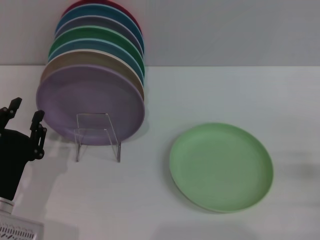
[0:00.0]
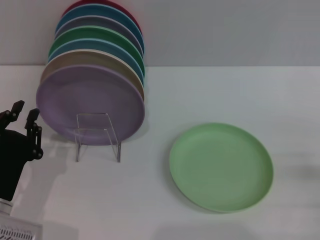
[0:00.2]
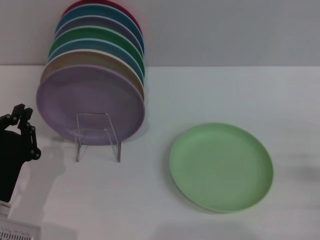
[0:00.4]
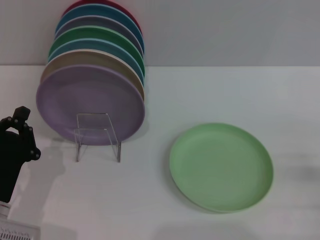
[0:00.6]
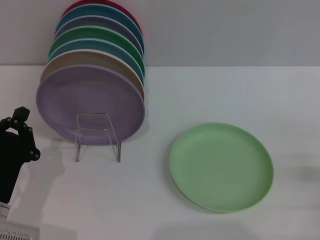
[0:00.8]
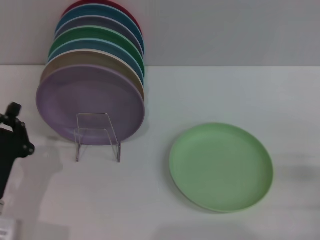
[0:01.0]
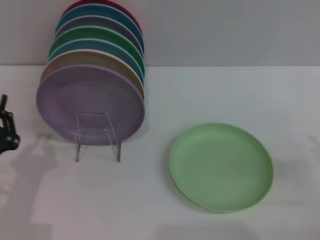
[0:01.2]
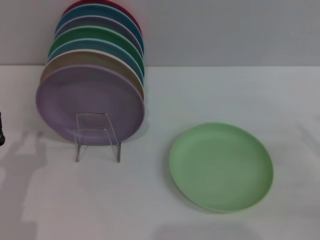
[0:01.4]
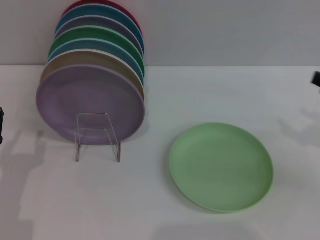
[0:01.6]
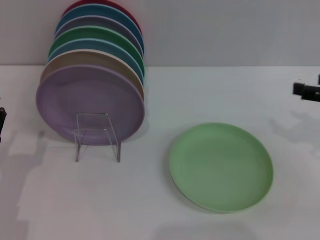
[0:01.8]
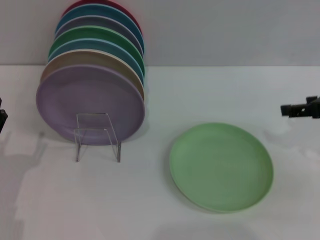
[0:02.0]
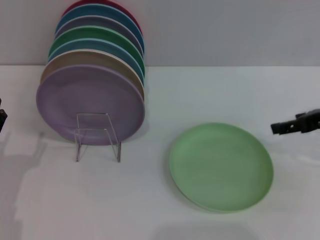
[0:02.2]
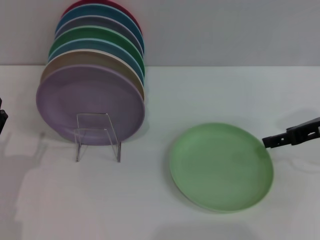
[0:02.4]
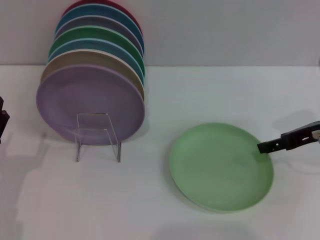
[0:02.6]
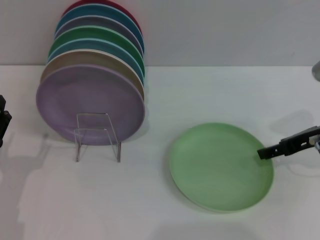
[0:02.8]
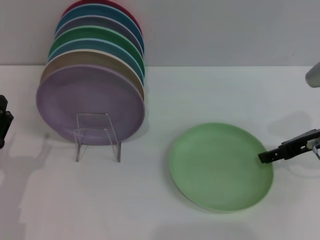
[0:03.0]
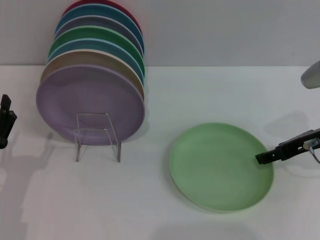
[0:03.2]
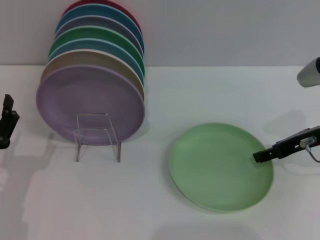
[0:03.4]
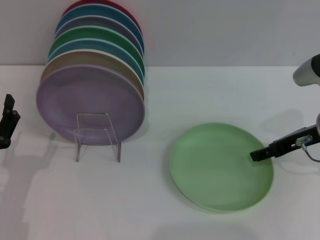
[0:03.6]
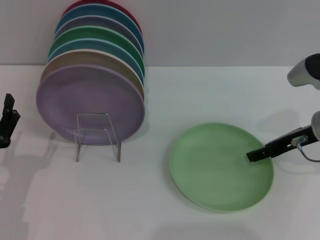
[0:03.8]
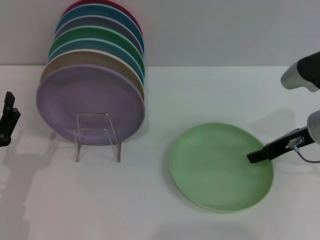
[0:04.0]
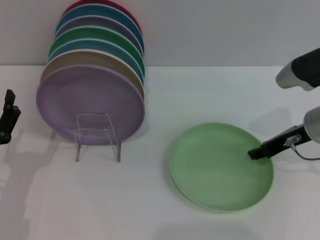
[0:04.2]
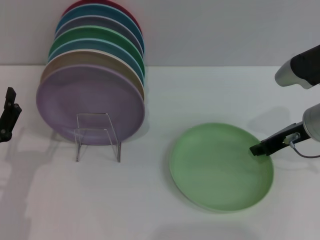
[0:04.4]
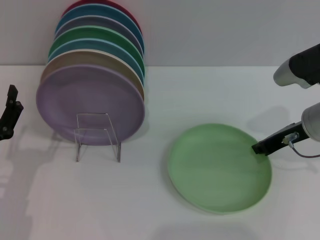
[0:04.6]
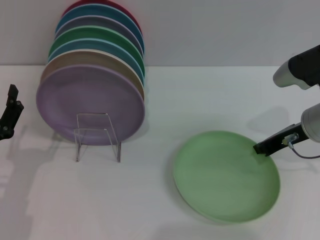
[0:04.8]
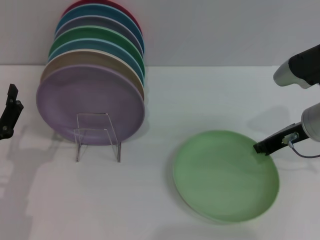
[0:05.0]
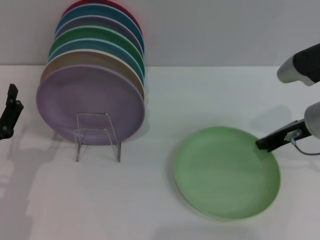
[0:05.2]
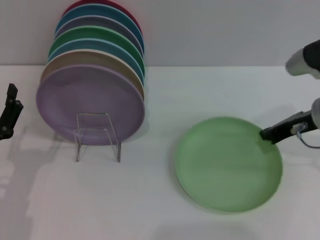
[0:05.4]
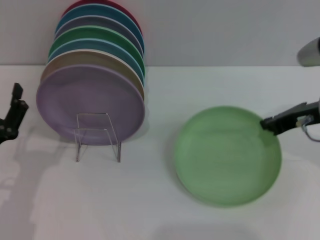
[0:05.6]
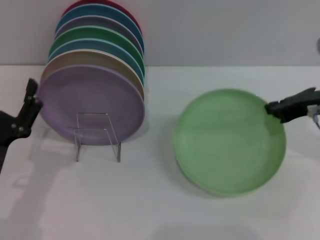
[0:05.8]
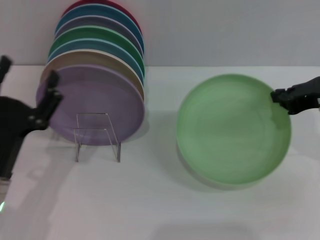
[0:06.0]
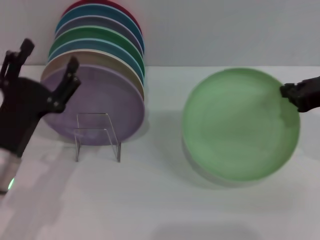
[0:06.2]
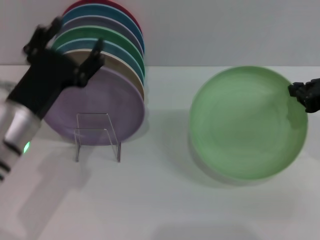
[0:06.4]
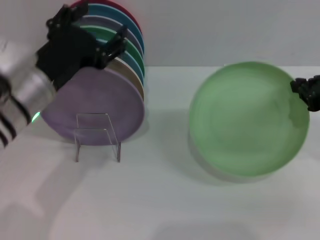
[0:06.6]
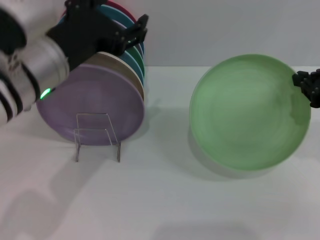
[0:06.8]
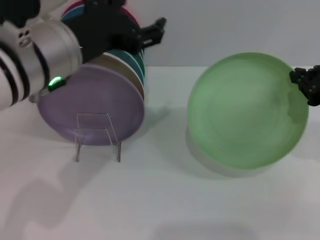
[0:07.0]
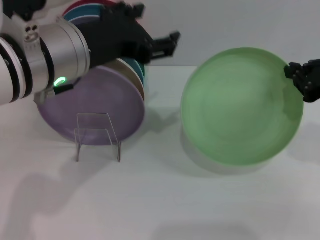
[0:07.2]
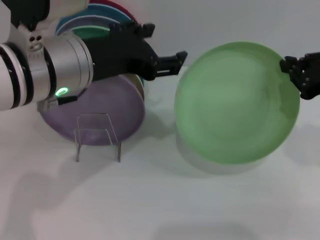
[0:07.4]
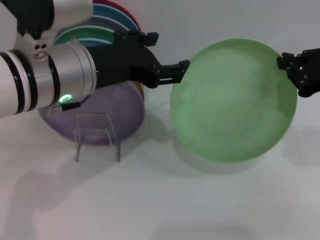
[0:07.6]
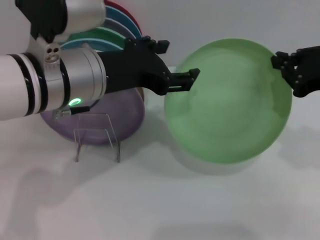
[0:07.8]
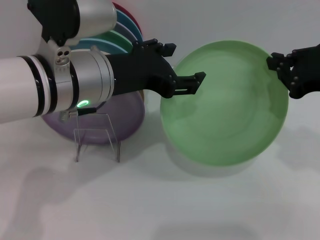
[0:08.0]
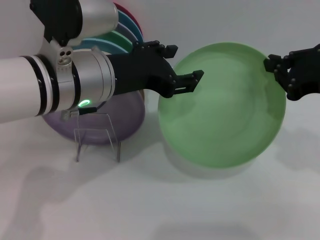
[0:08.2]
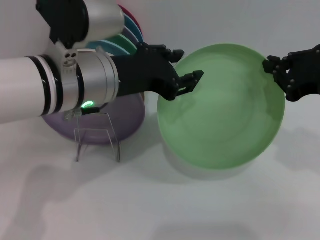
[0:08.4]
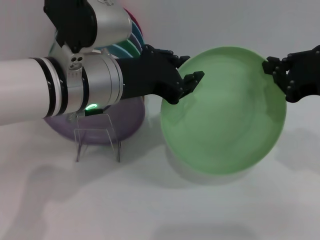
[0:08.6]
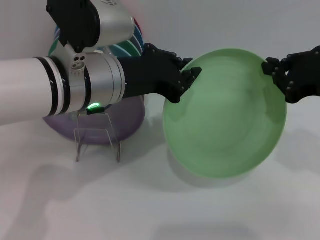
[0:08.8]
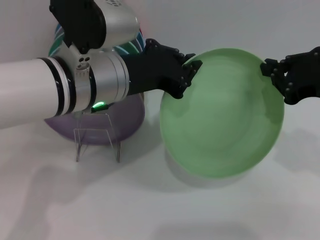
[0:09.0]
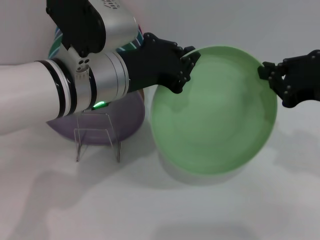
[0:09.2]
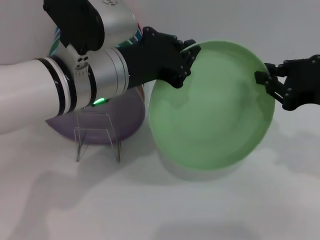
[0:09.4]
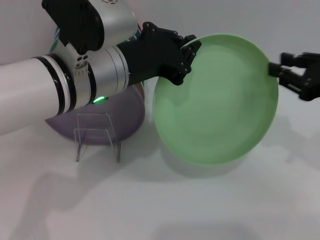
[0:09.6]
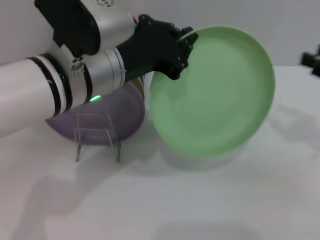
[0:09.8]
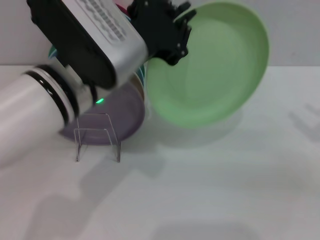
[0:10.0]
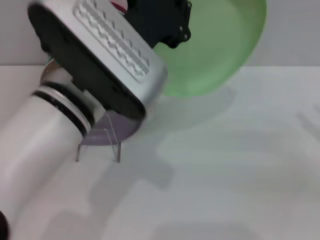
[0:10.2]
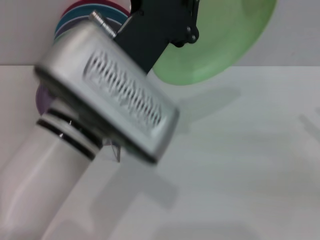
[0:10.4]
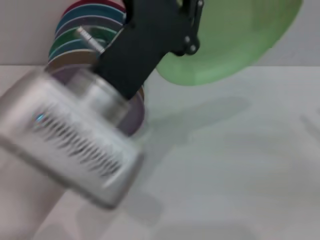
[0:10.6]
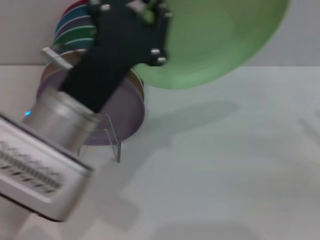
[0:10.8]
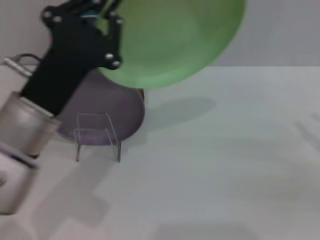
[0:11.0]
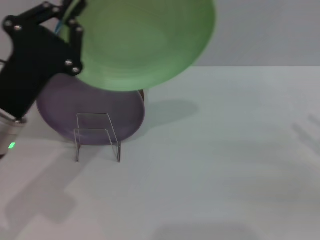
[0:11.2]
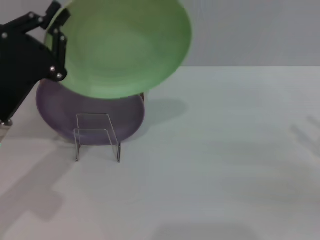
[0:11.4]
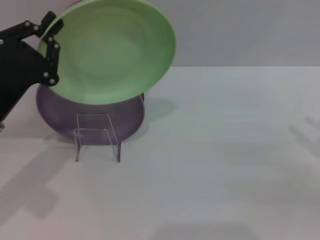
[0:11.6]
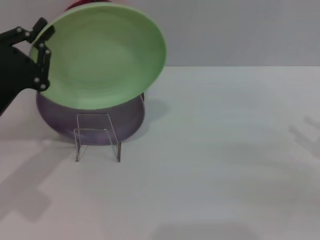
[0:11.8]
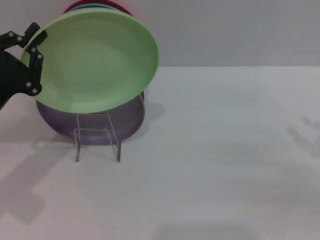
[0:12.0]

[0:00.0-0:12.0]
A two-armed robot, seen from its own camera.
Task of the whole recording: Grip the plate with one hand, pass it to the other, then set it on the shelf.
Step, 0:00.0 to 0:06.0: Pick up the plate with the right gripper.
Step, 0:06.2 to 0:09.6: Pass the plate from the right gripper to the left gripper.
0:00.0 to 0:01.6: The left gripper closes.
0:01.6 to 0:03.0: The right gripper shifts roughly 10 cm to the left and forward.
0:03.0 to 0:04.4: The grippers move only a little.
0:04.4 to 0:06.0: The right gripper heads upward, covering approximately 5 cm, and closes.
0:06.0 to 0:07.6: The left gripper is displaced upward, to the right and forward by about 20 cm.
0:07.6 to 0:09.0: The left gripper closes its fingers.
0:09.0 to 0:10.4: The left gripper travels backward by roughly 5 cm, while the right gripper moves to the right, approximately 15 cm, and opens its fingers.
0:10.4 to 0:12.0: The left gripper goes approximately 20 cm to the left and downward.

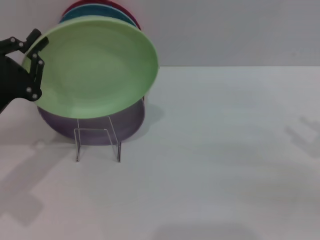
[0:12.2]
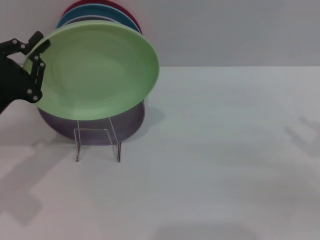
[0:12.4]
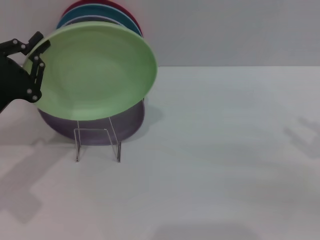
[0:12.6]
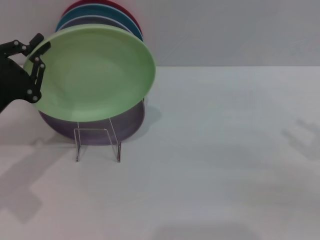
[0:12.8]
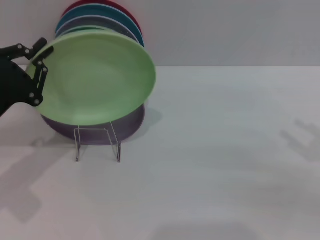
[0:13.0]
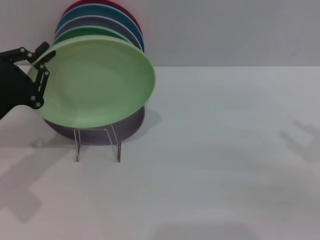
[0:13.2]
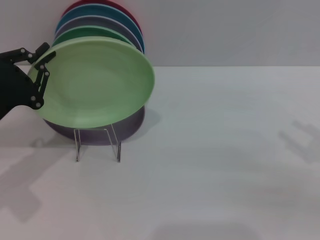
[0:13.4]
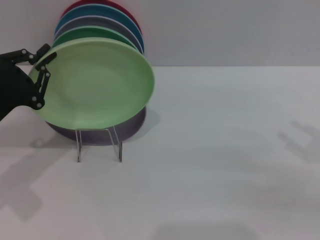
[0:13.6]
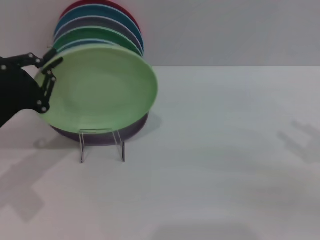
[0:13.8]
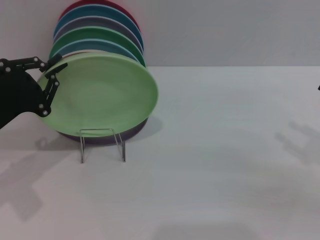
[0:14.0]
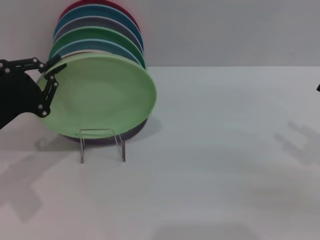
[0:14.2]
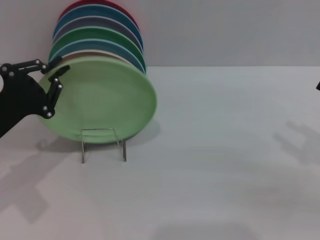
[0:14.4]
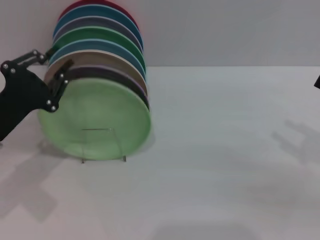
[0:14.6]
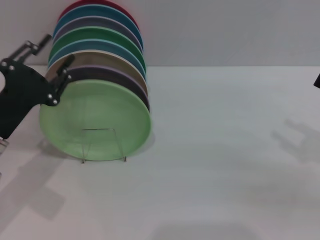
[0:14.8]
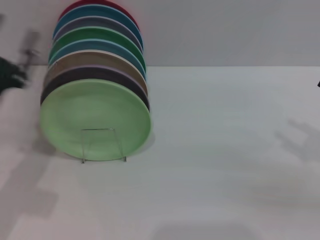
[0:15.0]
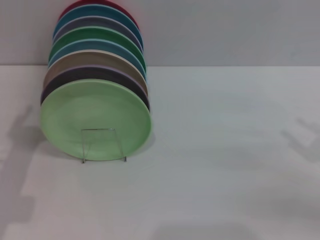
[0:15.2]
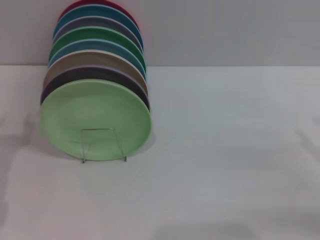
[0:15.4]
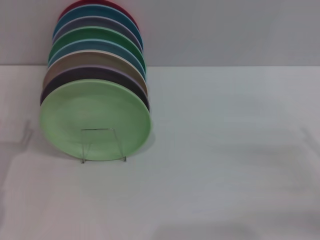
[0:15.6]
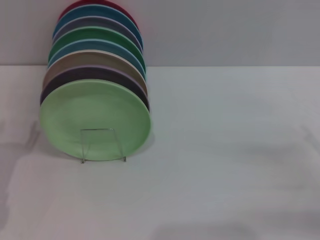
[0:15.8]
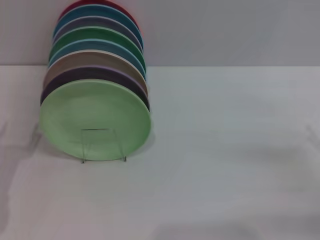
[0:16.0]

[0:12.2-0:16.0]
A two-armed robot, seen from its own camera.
Task of the whole recording: Grip the plate with one hand, pass it to the other, then set it on the shelf.
Step, 0:12.2 to 0:14.8: Place the plate on the shelf with the left gripper.
0:12.2 to 0:14.8: The grippers stay close to where they were, moving slightly.
0:14.8 to 0:16.0: The left gripper travels backward by approximately 5 cm, and opens.

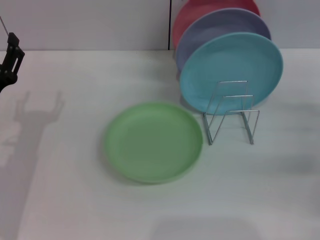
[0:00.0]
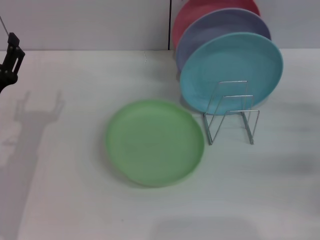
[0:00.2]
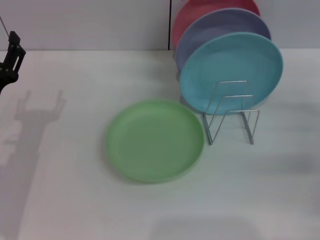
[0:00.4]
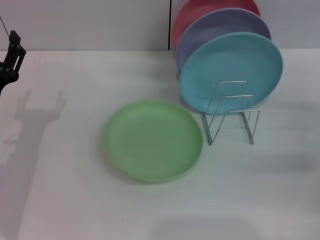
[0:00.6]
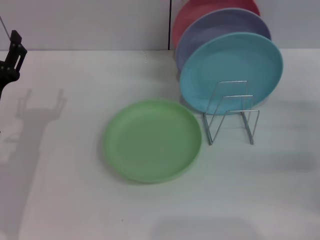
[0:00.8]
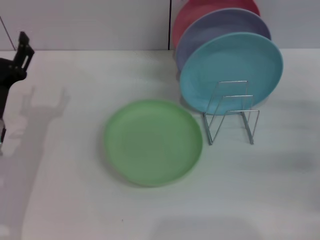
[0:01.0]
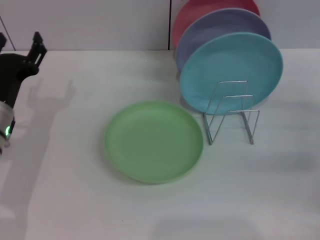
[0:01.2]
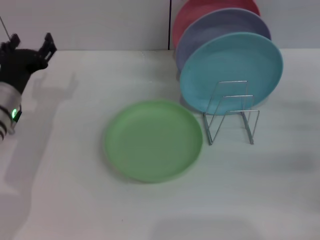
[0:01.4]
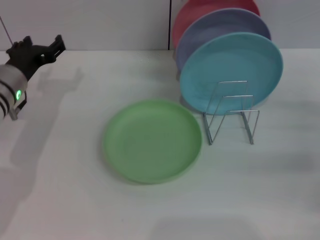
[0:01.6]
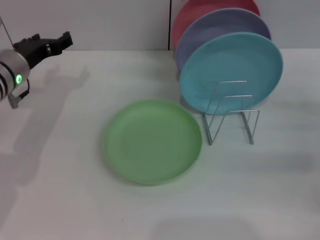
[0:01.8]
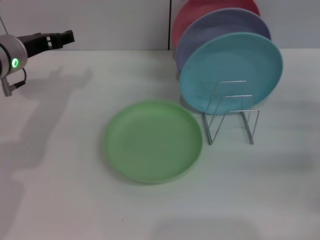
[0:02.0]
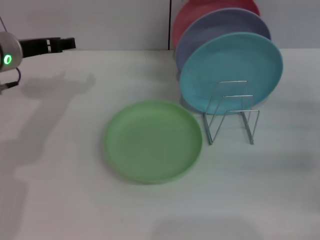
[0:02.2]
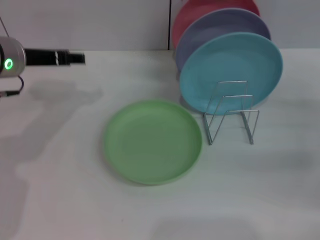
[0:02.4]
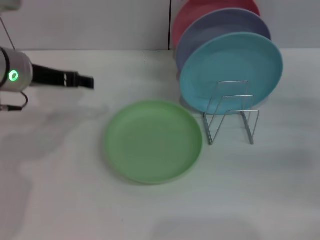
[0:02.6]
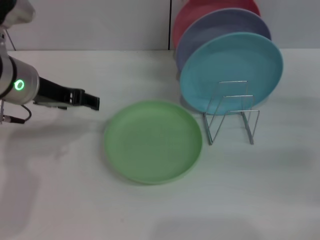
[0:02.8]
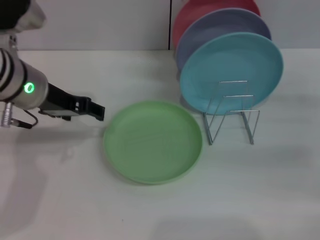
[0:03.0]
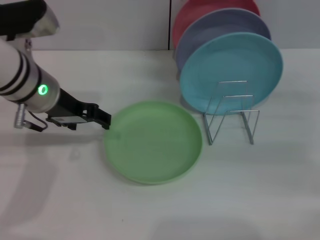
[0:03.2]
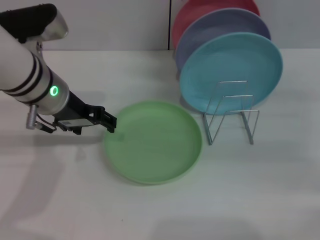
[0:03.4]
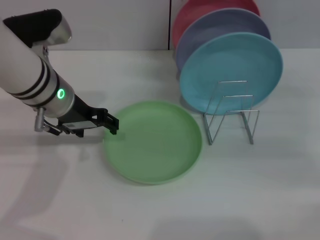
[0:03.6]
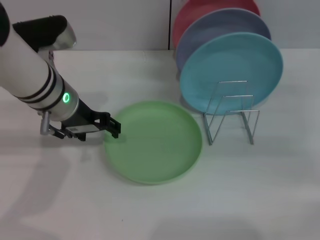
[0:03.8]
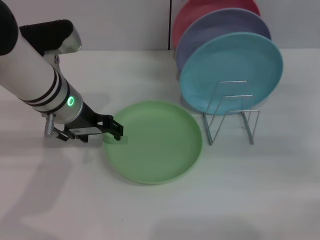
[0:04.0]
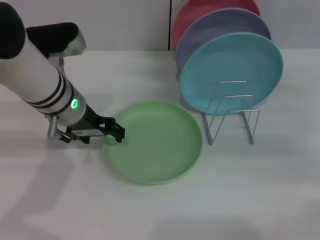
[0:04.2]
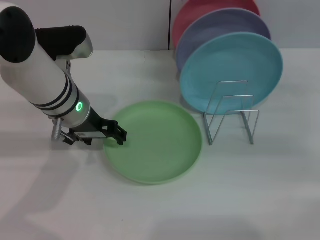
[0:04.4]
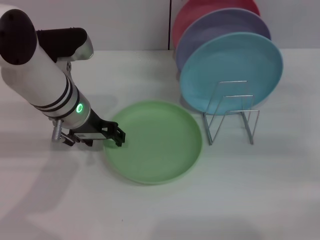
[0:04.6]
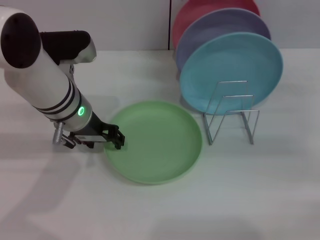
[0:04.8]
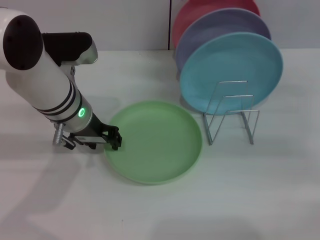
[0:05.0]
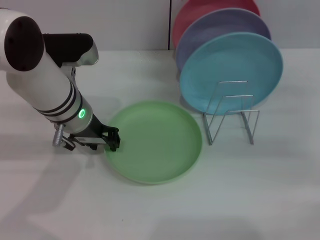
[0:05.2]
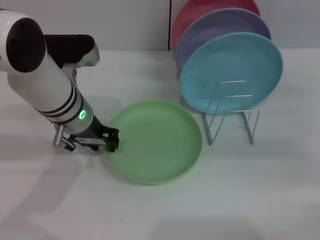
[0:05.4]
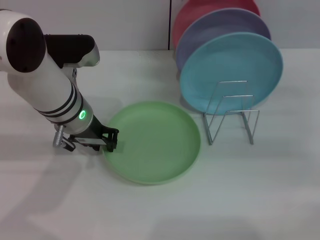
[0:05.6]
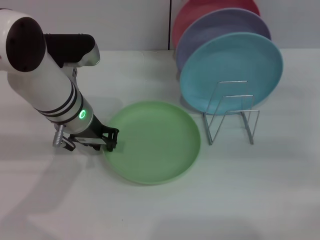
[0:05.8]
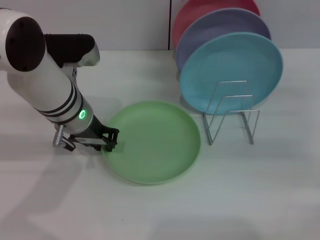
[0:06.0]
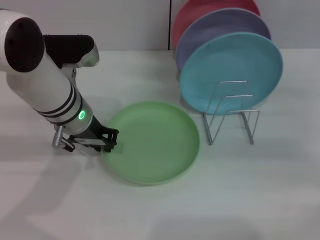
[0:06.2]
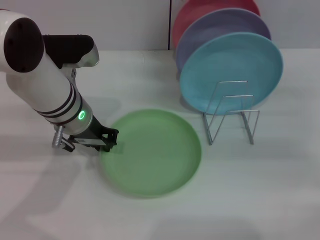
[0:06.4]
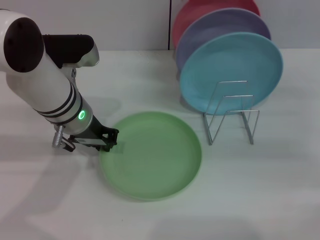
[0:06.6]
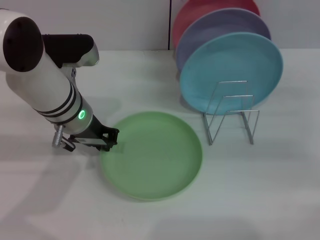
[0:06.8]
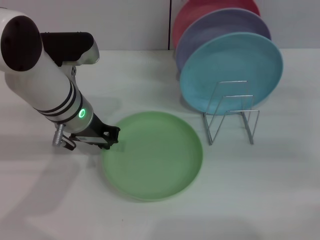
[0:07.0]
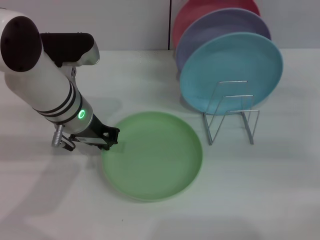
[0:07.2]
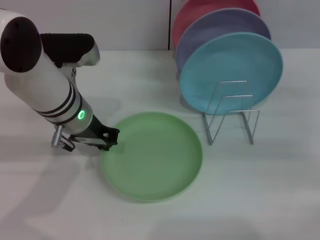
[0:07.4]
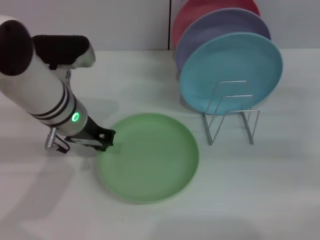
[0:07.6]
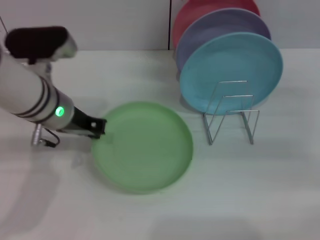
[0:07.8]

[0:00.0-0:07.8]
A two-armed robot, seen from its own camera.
Task of the whole recording: Grip the plate with one hand, pass it to the other, then set it on the shelf.
0:00.0 to 0:01.6: The left gripper heads forward, covering about 10 cm.
0:01.6 to 0:03.2: The left gripper travels upward and to the right by about 10 cm.
0:03.2 to 0:04.6: The left gripper ends up roughly 5 cm from where it was.
0:04.6 to 0:06.2: The left gripper closes up.
0:06.2 to 0:07.8: The grippers stay close to where they were, moving slightly.
